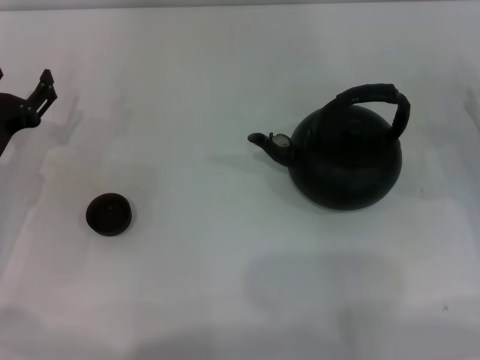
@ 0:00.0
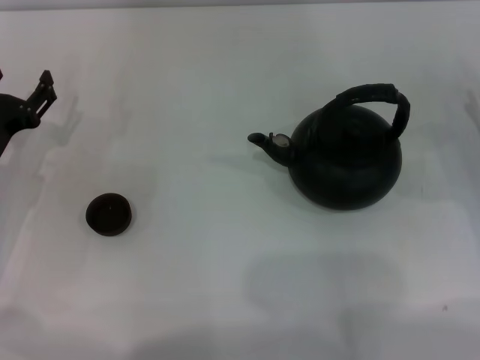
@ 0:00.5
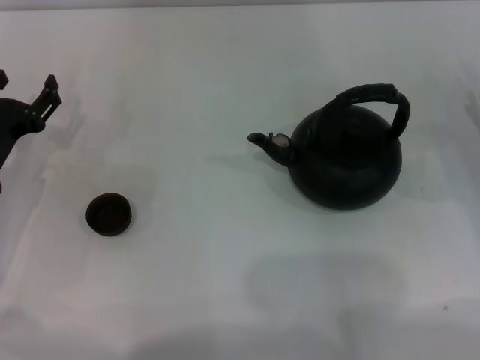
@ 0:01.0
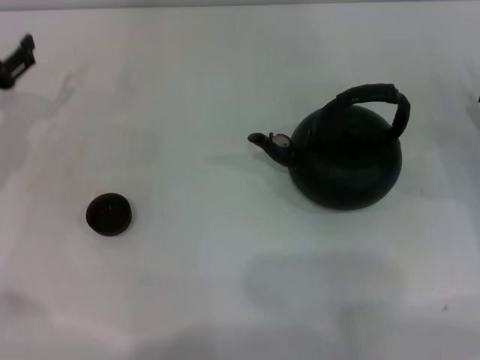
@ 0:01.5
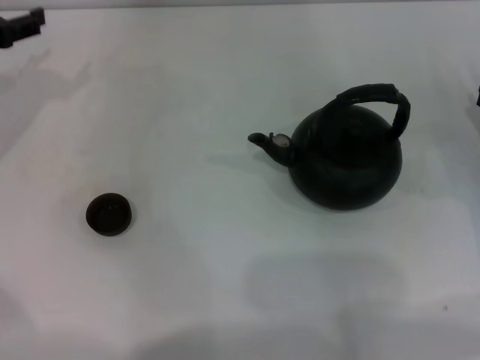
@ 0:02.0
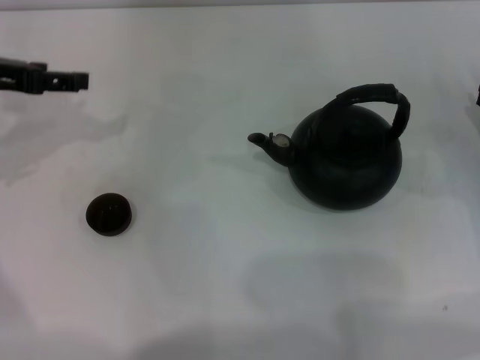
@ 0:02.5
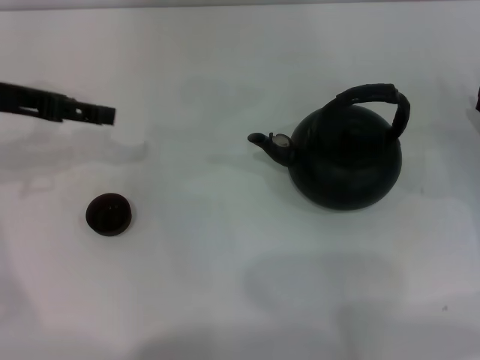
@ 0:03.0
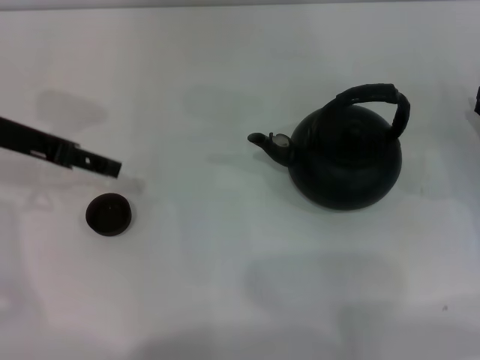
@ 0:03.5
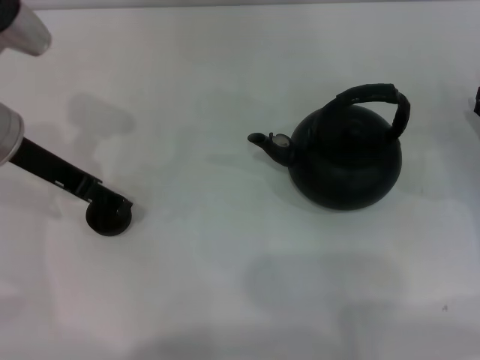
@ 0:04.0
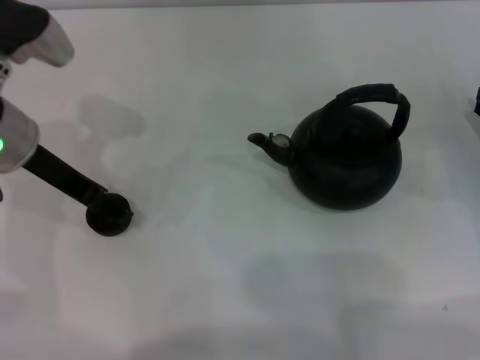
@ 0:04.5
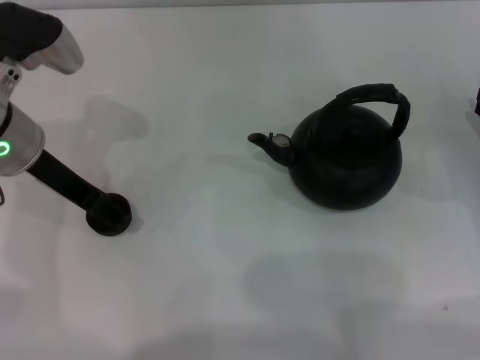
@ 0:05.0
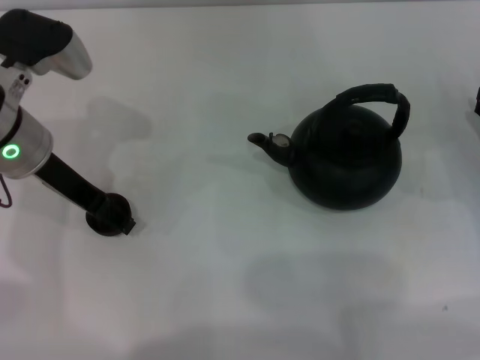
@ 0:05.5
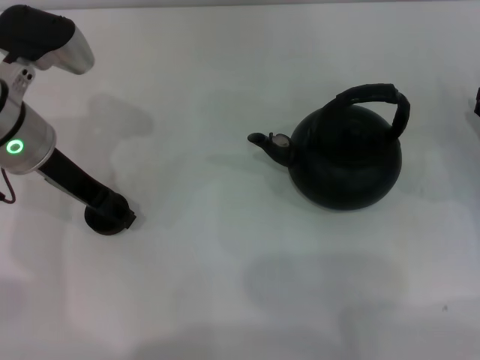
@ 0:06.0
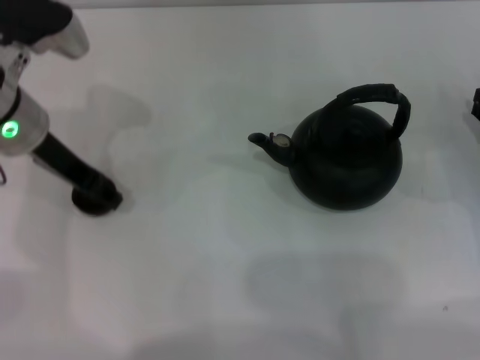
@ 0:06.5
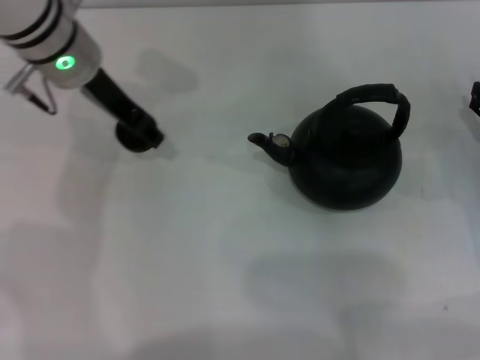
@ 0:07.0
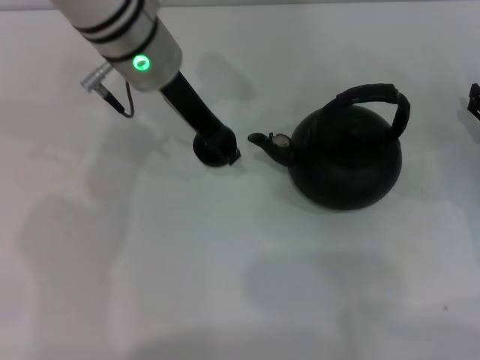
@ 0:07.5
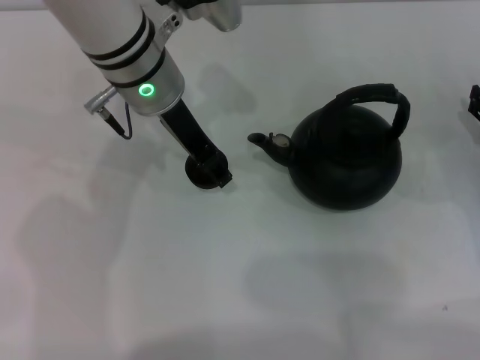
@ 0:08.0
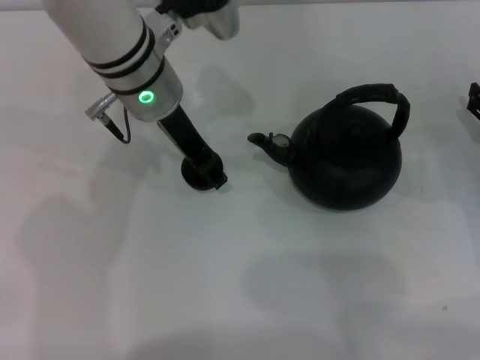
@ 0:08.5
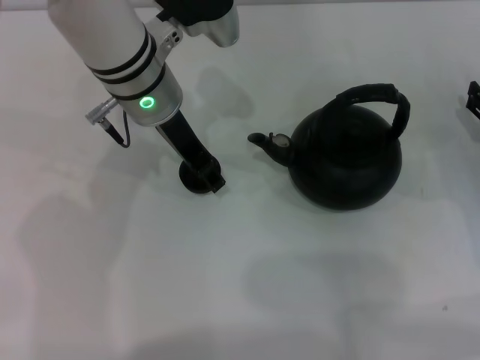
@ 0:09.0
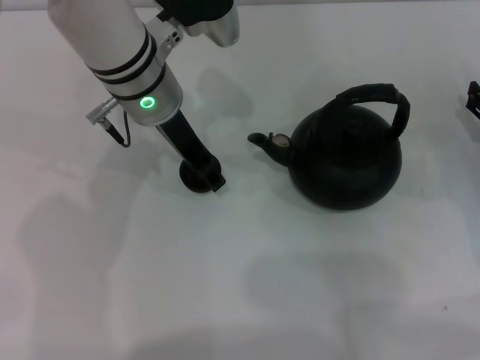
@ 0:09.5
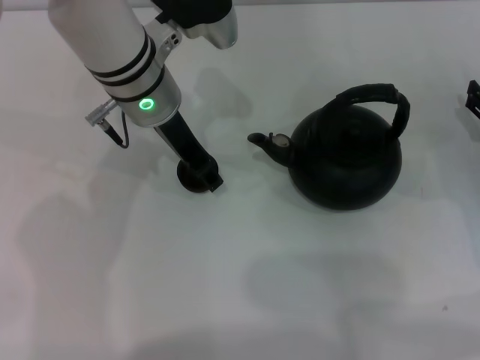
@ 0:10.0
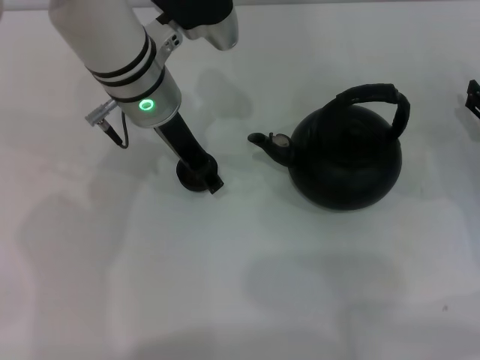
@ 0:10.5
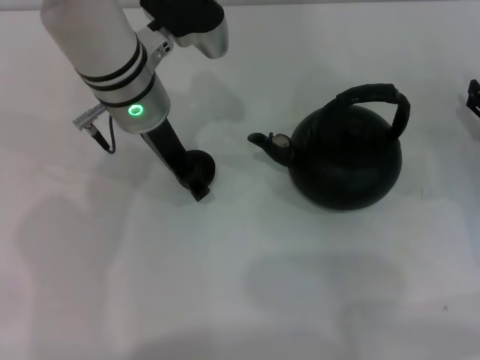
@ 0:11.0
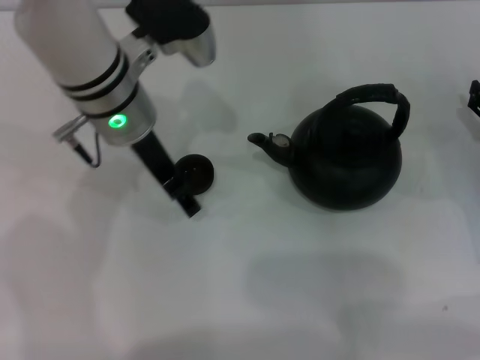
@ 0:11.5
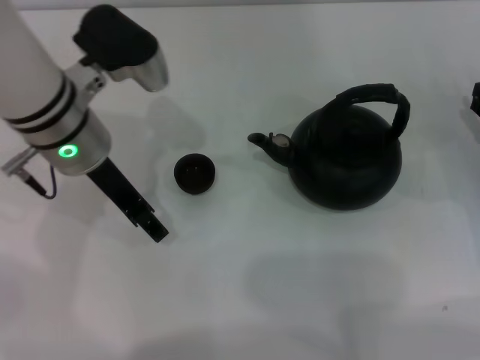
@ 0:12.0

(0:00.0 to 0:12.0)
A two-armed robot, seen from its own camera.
Task of the whole recording: Grasp the handle of the teapot with one hand and pour tea into the teacup.
Step, 0:00.0 - 0:06.5: Pick up the teacup with the left gripper.
Step, 0:07.0 - 0:11.5: Place the teacup in the center of view with the left gripper.
0:00.0 - 0:02.0: The left gripper shifts about 15 cm upward and forward.
0:02.0 - 0:04.0: The left gripper moves to the right, roughly 10 cm.
0:04.0 - 0:06.0: The grippers move only a little.
0:06.0 - 0:08.0: The left gripper moves to the right, approximately 10 cm, and closes its fingers.
0:08.0 - 0:10.0: The grippers make only small movements.
0:10.0 - 0:12.0: The left gripper travels to the left and backward by approximately 10 cm.

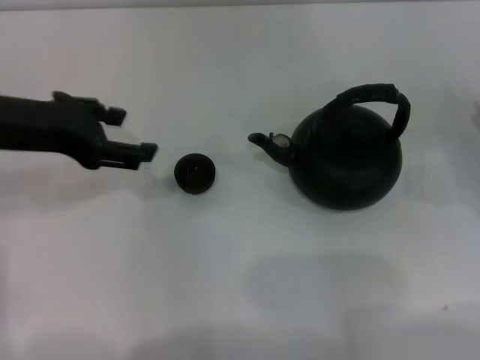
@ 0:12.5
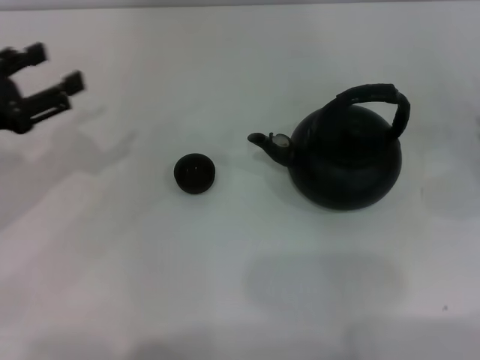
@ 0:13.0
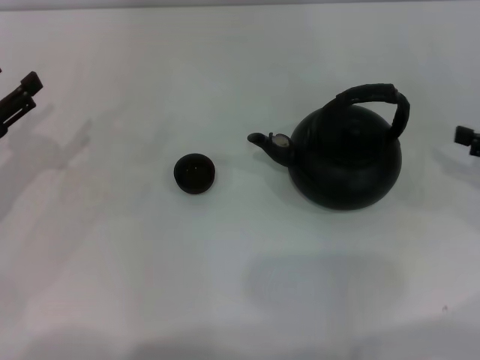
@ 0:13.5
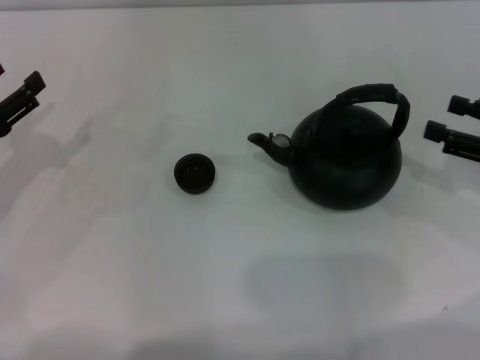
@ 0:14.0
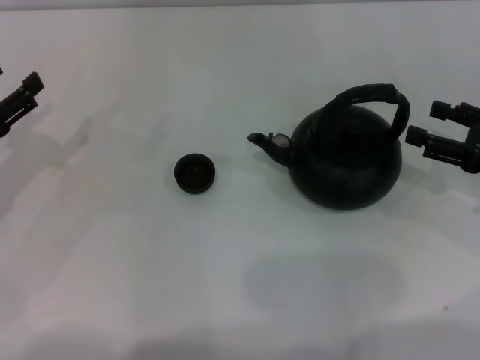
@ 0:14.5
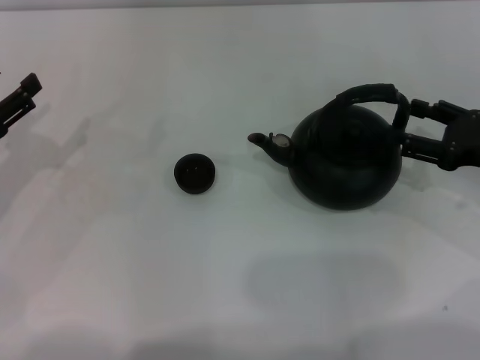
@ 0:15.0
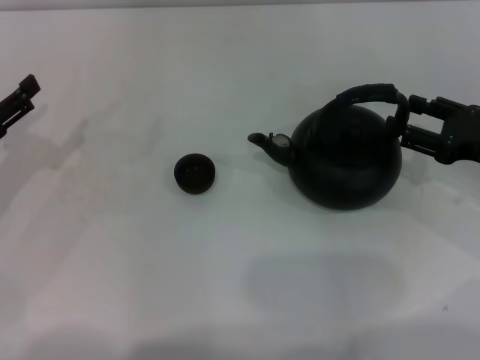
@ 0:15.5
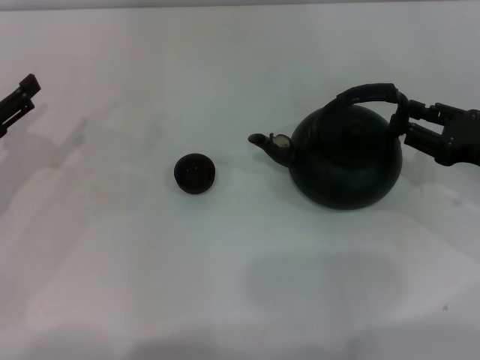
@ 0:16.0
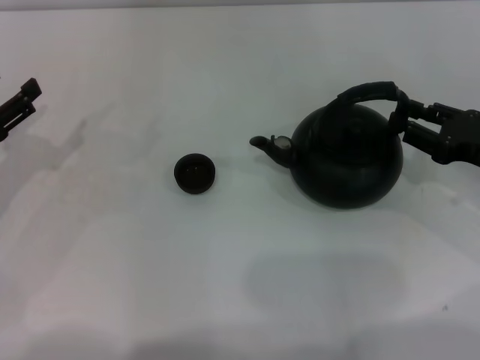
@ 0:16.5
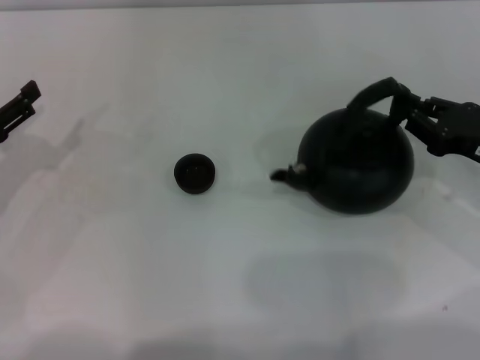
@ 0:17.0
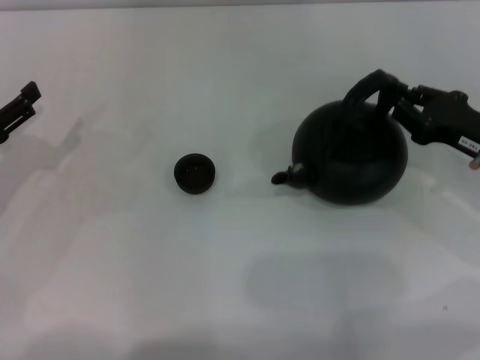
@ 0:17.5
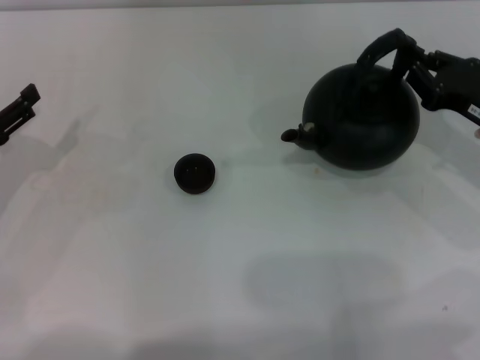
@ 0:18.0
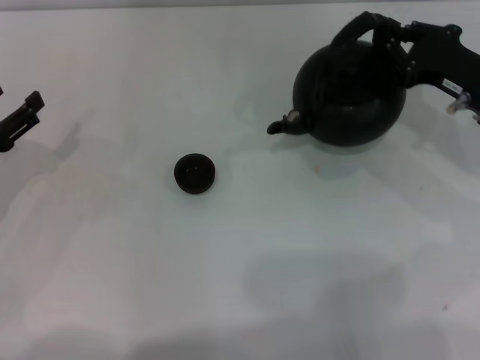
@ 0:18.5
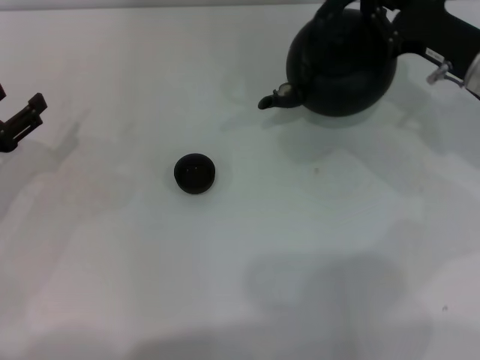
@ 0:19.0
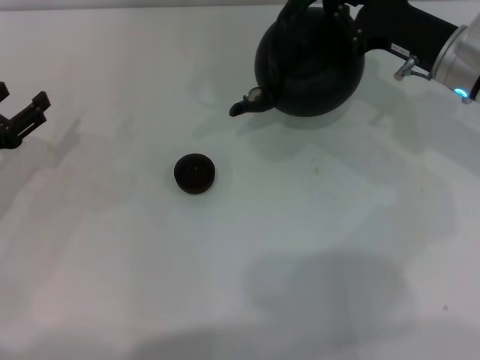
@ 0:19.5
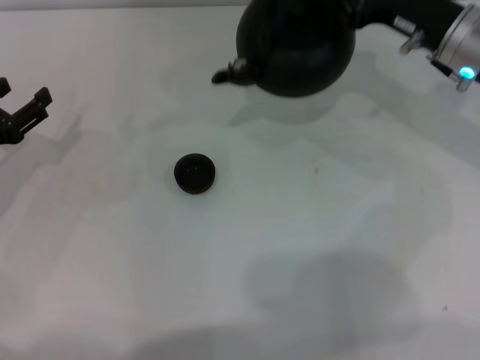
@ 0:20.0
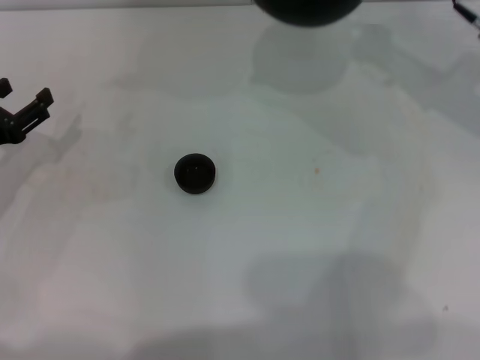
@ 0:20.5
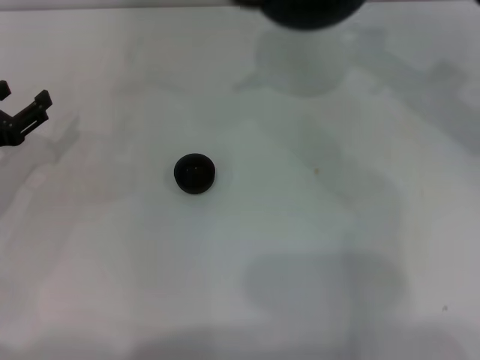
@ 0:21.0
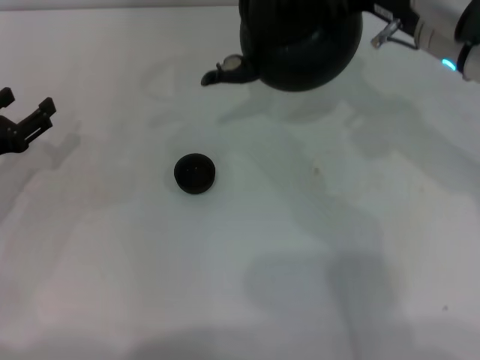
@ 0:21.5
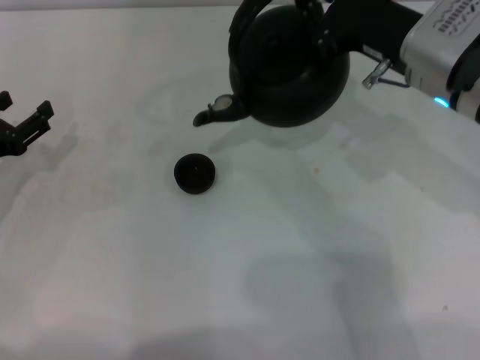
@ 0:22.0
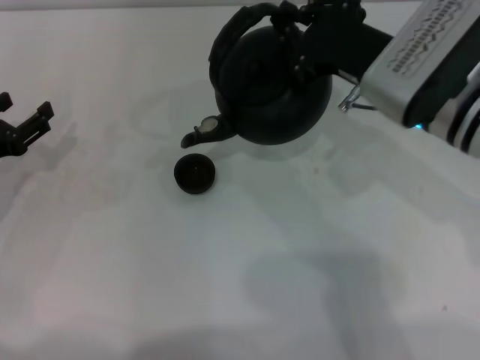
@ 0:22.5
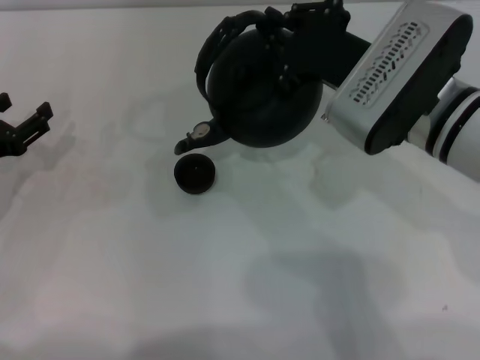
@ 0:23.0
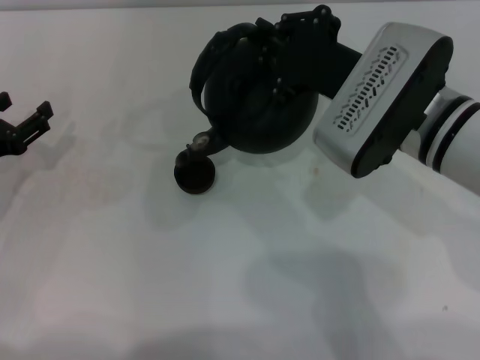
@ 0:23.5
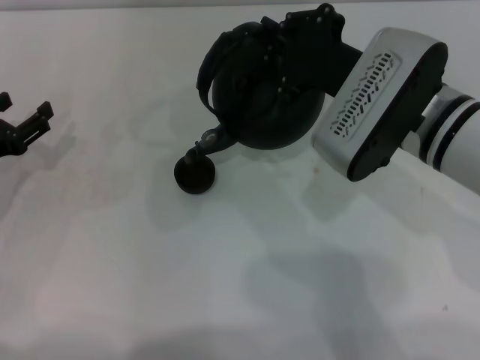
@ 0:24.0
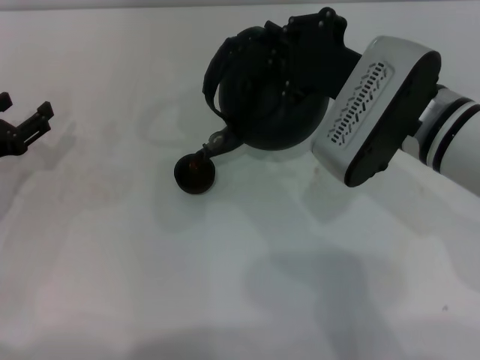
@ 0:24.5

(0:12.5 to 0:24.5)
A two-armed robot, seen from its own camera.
Task of the whole recording: Grasp the handle of the teapot with one hand and pour tea into the teacup.
Step, 0:12.5 - 0:18.5: Pick up the teapot with the right gripper.
0:12.5 - 0:14.5: The right gripper shifts approximately 5 cm upward, while the left gripper travels downward and to the left by approximately 15 cm.
0:14.5 - 0:16.5: The right gripper closes.
0:16.5 - 0:18.5: The right gripper is displaced forward by approximately 5 cm, and closes up.
0:18.5 - 0:20.5: The right gripper shifts roughly 10 cm upward and forward.
0:20.5 - 0:22.5: The right gripper moves backward and to the left, approximately 15 cm.
0:22.5 - 0:24.5: The grippers make only small movements.

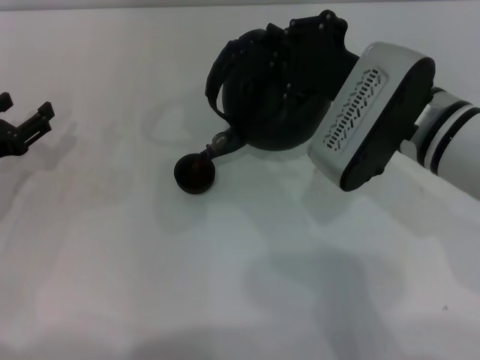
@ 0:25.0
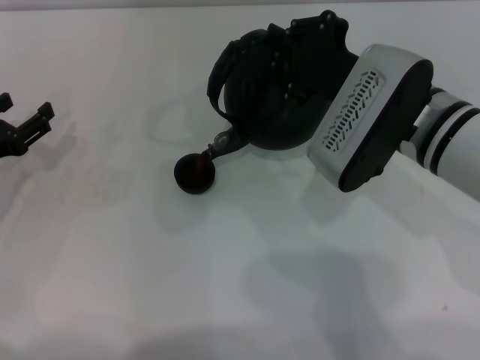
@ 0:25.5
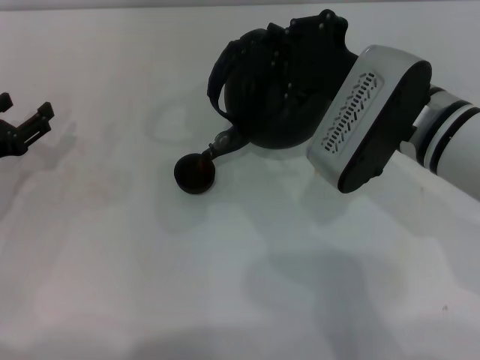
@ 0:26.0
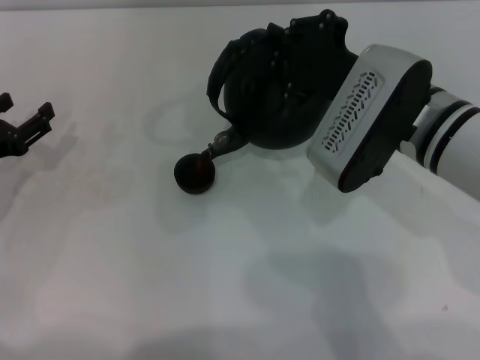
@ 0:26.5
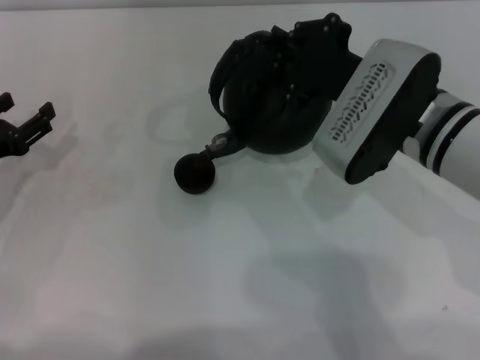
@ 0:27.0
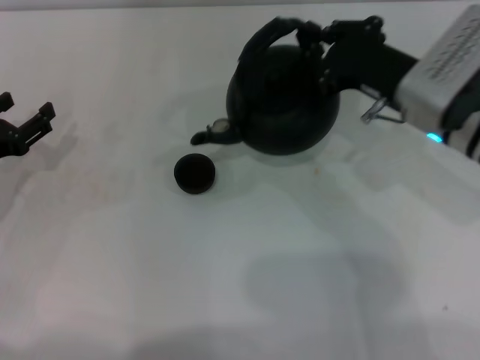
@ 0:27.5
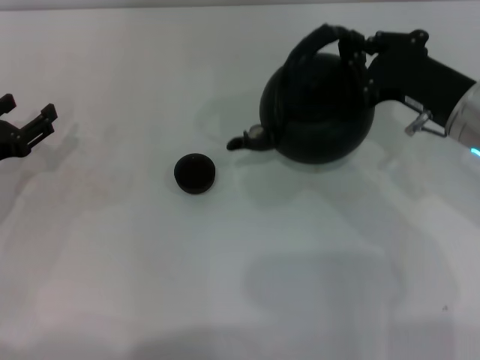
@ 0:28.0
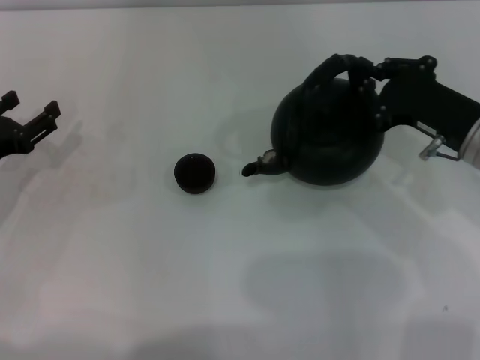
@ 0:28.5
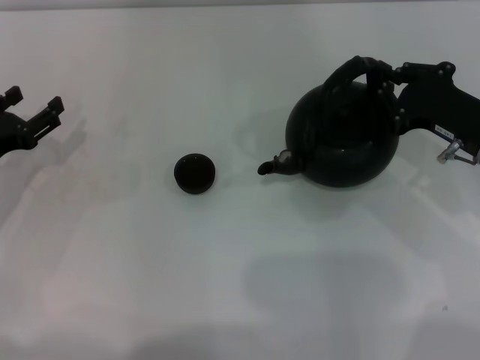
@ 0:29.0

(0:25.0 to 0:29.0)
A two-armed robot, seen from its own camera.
Task of the whole recording: Grasp the handle of the teapot with one hand and pour tea into the teacup.
Step, 0:25.0 - 0:27.5: Pour tea into the teacup with the right gripper.
0:25.0 - 0:27.0: Neither gripper changes place.
0:27.0 - 0:29.0: The right gripper goes roughly 15 cm to the right and downward.
